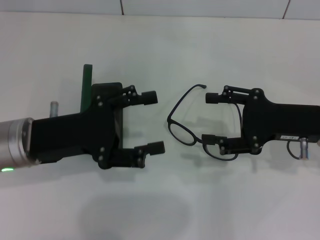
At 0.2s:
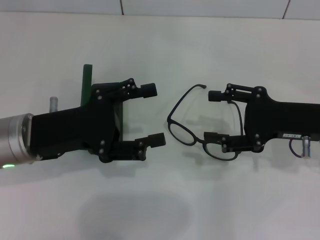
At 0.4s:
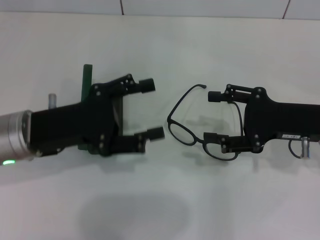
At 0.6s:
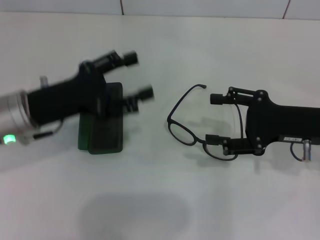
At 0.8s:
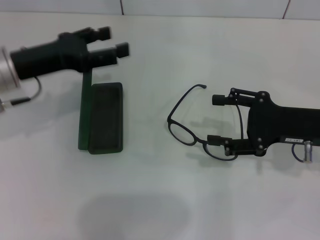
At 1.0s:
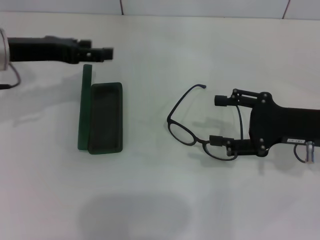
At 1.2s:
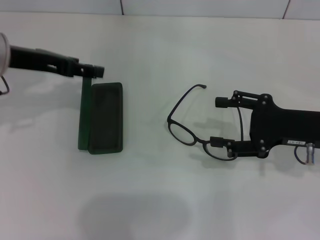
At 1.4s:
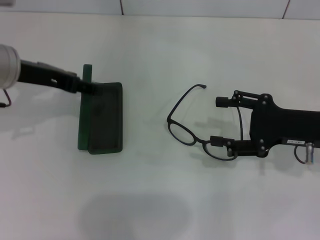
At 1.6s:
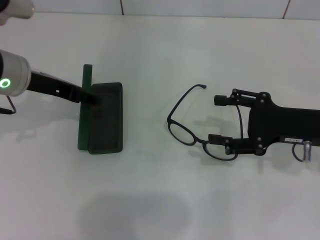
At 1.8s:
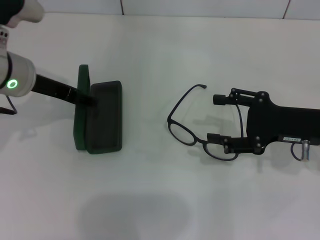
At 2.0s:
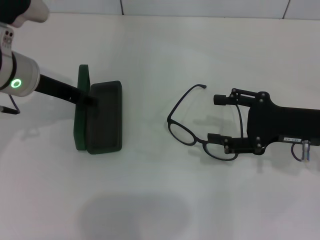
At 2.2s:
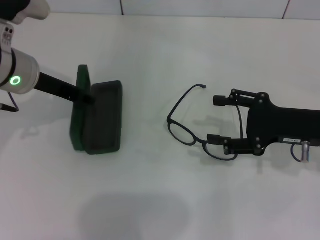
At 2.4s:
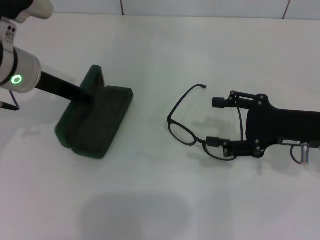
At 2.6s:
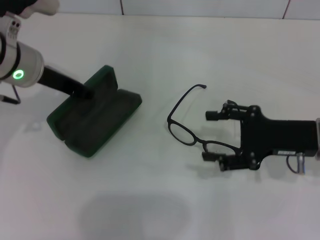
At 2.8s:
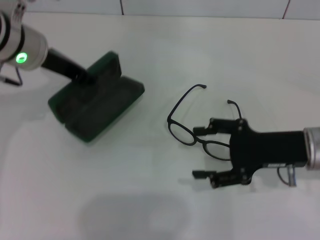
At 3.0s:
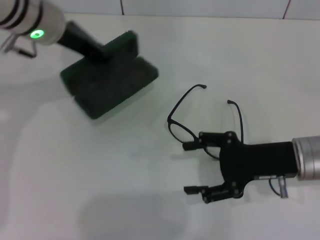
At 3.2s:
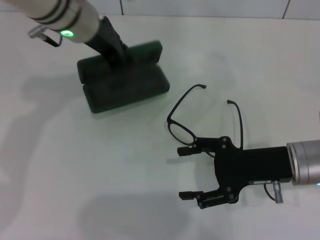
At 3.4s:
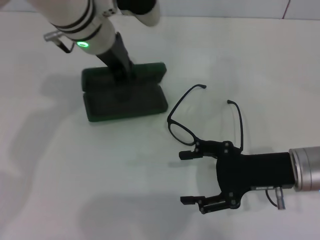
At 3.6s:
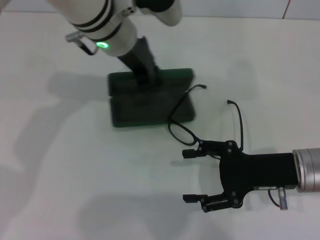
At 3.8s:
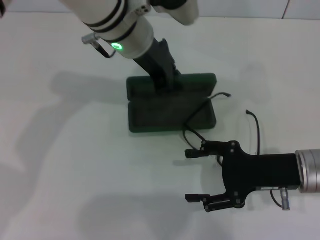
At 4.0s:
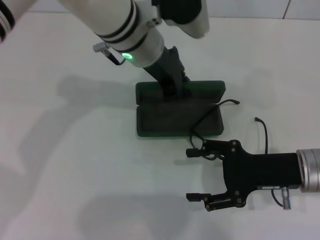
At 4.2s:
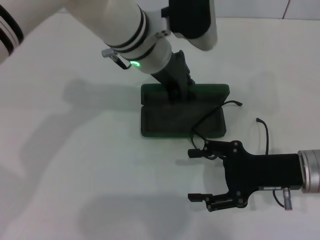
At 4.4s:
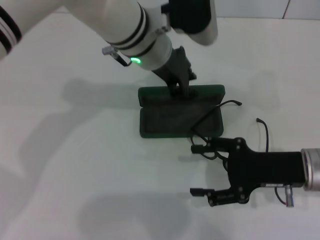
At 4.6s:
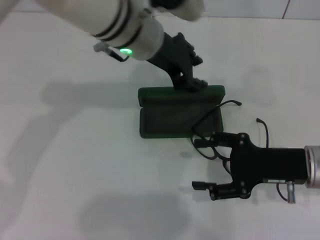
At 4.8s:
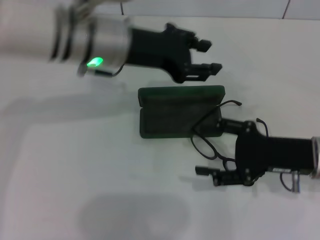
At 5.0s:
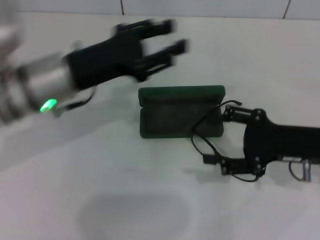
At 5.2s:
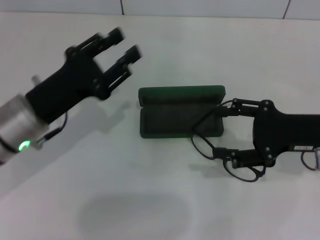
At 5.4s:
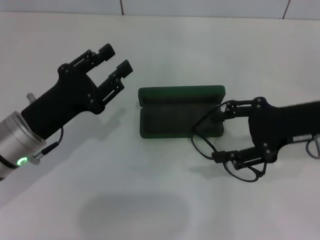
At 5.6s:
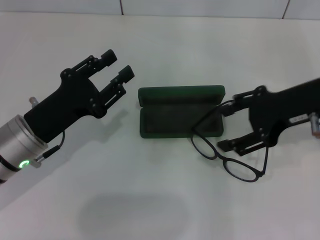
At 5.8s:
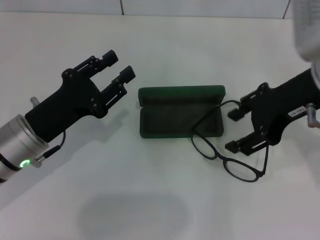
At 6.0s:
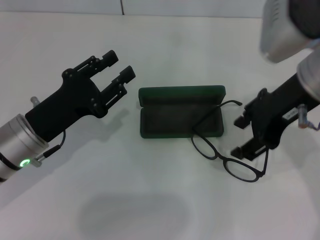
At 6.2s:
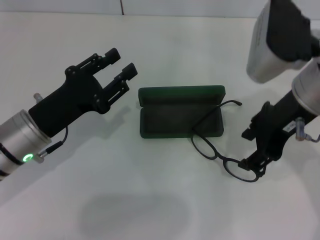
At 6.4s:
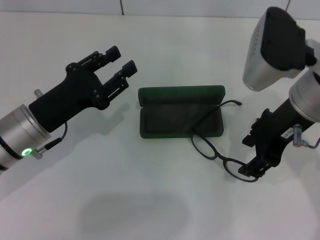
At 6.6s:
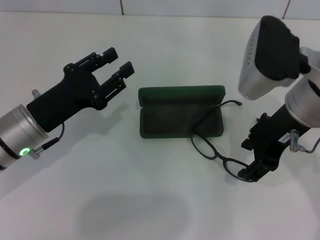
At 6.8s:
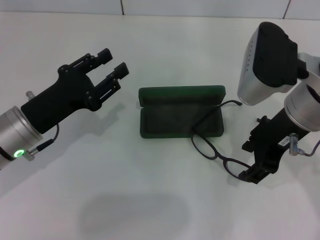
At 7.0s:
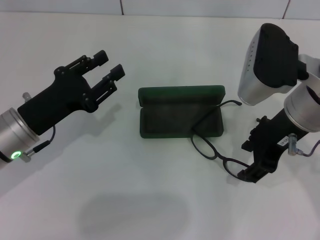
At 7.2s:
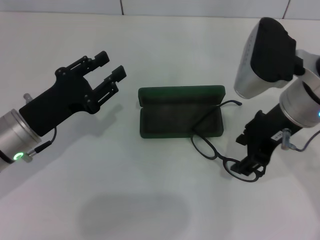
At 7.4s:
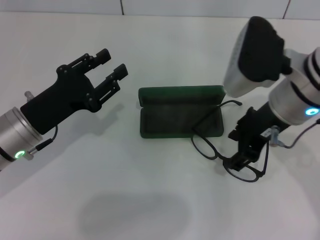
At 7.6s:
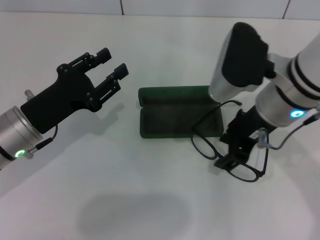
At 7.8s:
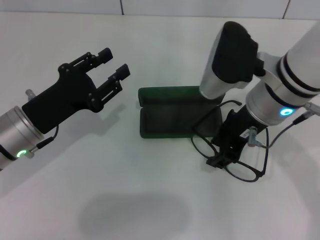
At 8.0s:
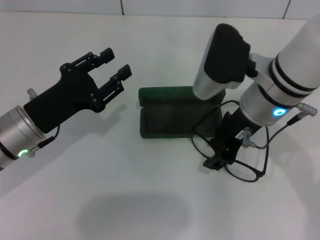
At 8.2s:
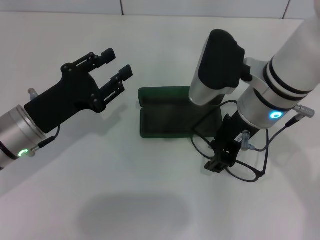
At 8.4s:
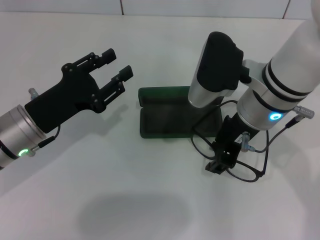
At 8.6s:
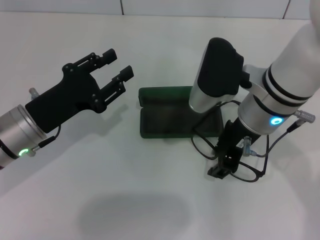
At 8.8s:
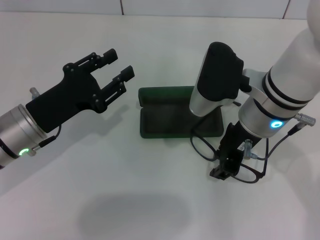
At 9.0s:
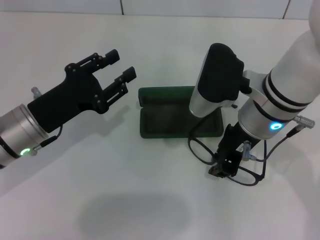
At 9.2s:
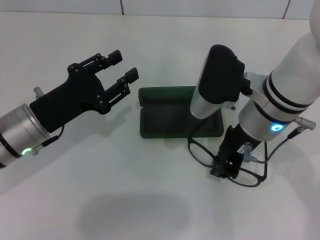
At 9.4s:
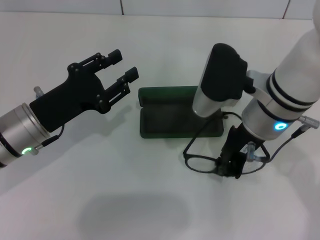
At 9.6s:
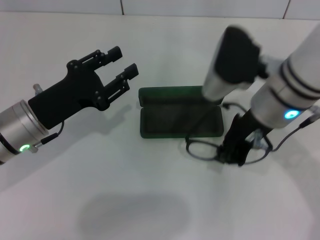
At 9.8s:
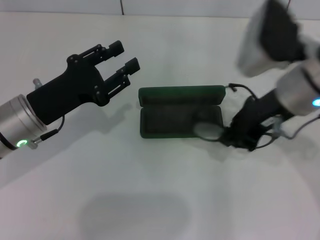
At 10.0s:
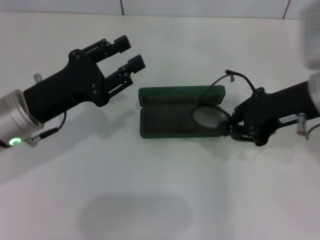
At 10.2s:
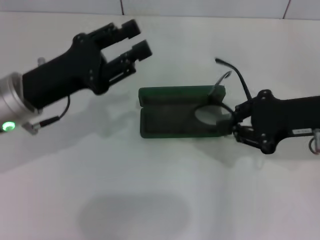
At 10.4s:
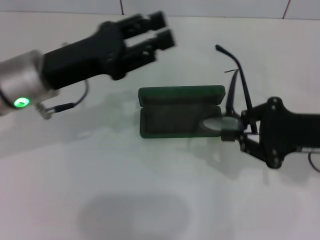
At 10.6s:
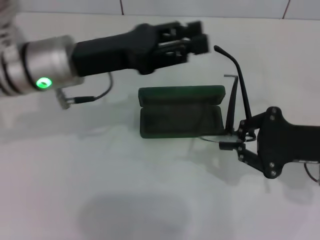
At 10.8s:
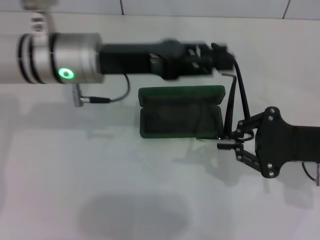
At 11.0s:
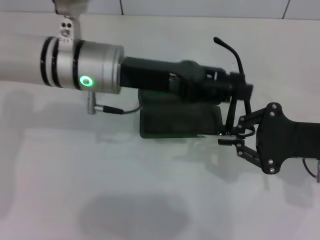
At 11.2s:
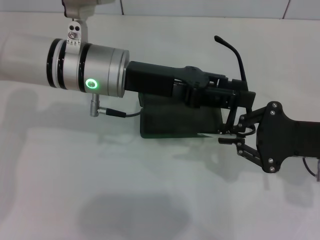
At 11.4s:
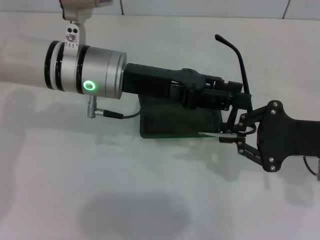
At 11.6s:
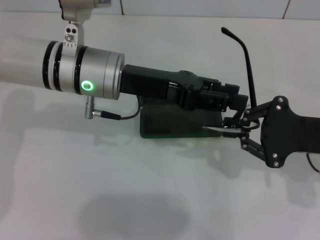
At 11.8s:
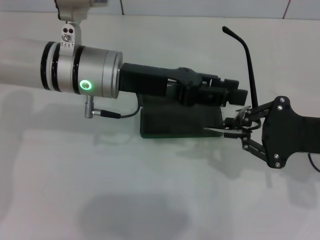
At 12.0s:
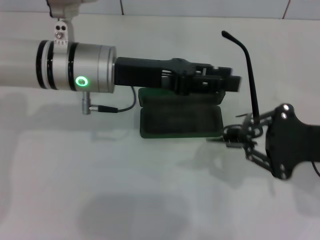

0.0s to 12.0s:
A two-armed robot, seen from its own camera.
Step, 0.0s to 2.2s: Grab the glasses case with your left hand.
Step, 2.4s to 4.6s: Place the glasses case in the center of the table with your left hand.
Step, 5.0s to 9.4s: Grab the eyeglass frame with your right hand.
0.0s to 1.6s: The left gripper goes about 10 cm forward and upward.
1.6s to 3.0s: The left gripper goes about 5 cm to the right, and closes.
3.0s to 4.4s: The left gripper travels to the right by roughly 15 cm.
4.4s to 6.0s: The left gripper heads to the left, backward and downward, covering some 25 cm, and opens up, while the right gripper shifts roughly 15 cm upward.
6.0s to 7.6s: The right gripper heads downward, covering about 5 cm.
7.6s to 9.0s: The grippers stay close to where they were, moving slightly.
9.0s to 10.4s: The right gripper is displaced to the right by roughly 15 cm, and closes up, while the left gripper goes roughly 5 cm upward.
10.4s to 12.0s: The left gripper is displaced to the right by roughly 5 cm.

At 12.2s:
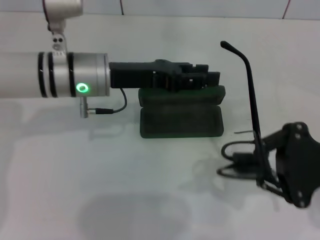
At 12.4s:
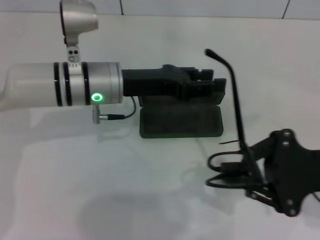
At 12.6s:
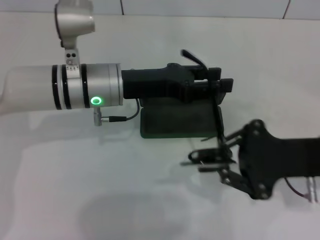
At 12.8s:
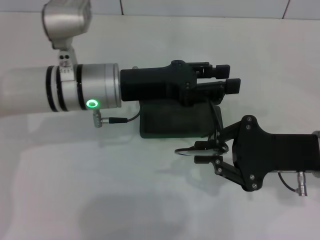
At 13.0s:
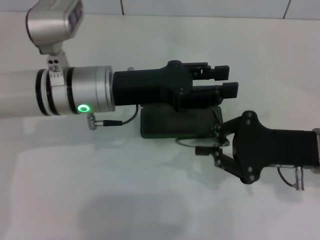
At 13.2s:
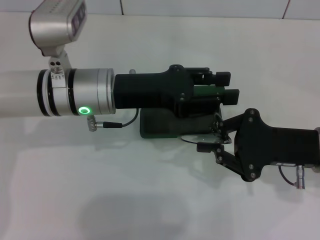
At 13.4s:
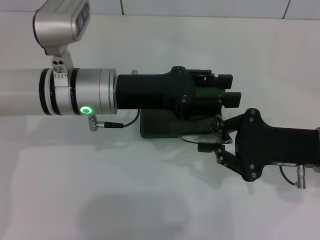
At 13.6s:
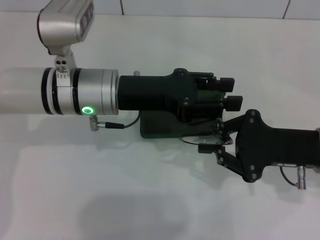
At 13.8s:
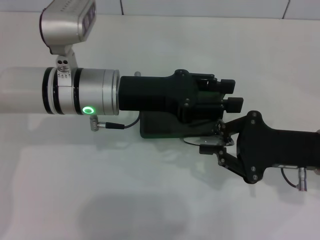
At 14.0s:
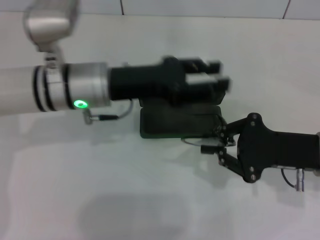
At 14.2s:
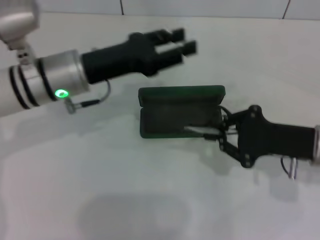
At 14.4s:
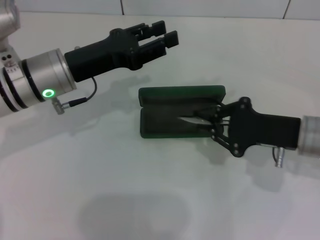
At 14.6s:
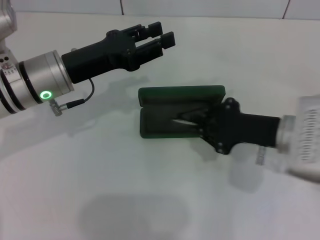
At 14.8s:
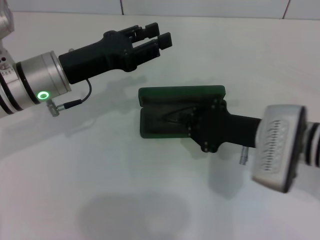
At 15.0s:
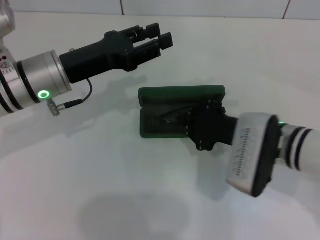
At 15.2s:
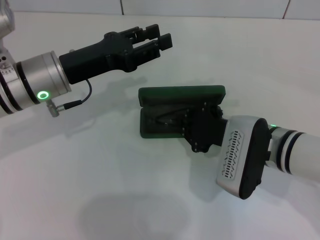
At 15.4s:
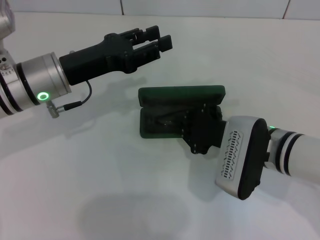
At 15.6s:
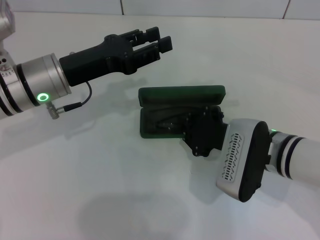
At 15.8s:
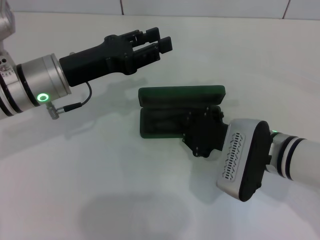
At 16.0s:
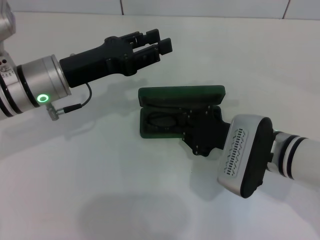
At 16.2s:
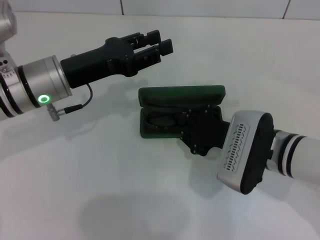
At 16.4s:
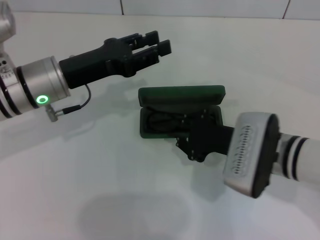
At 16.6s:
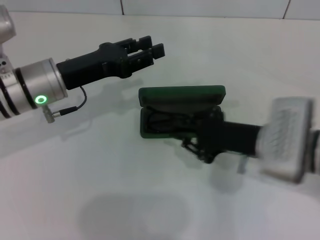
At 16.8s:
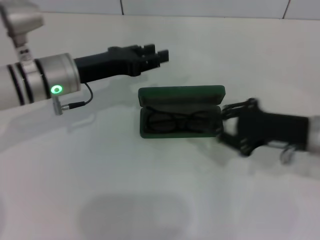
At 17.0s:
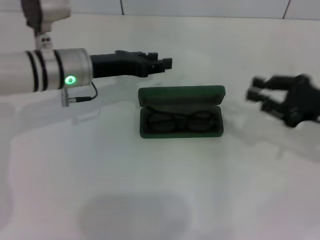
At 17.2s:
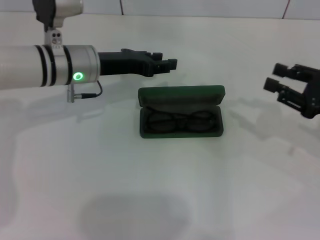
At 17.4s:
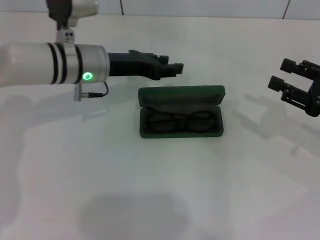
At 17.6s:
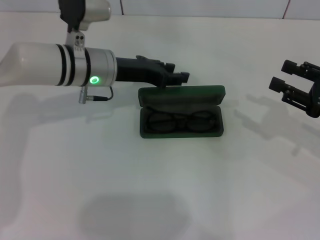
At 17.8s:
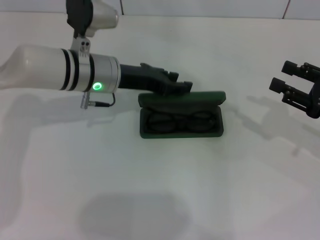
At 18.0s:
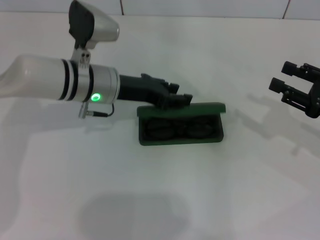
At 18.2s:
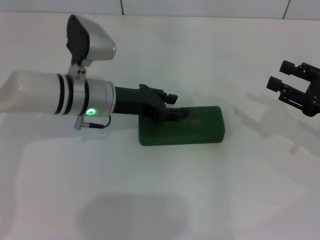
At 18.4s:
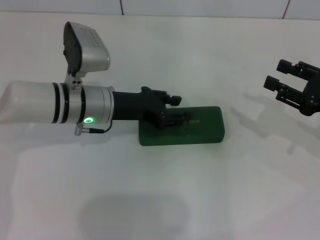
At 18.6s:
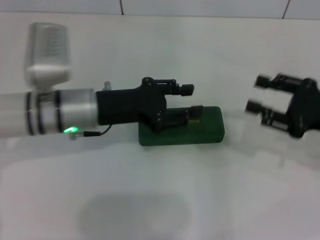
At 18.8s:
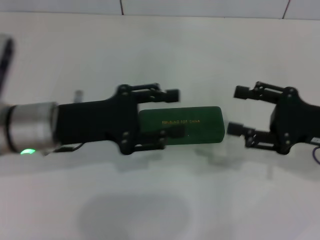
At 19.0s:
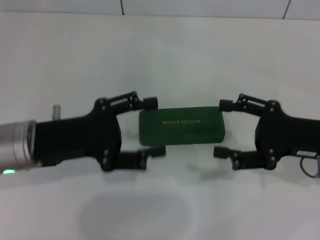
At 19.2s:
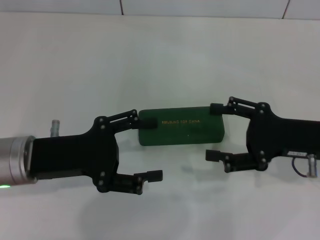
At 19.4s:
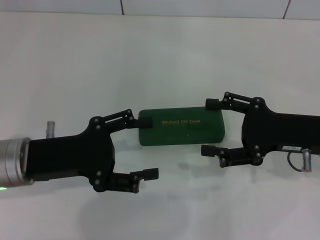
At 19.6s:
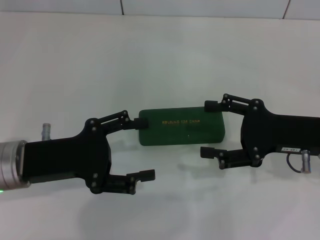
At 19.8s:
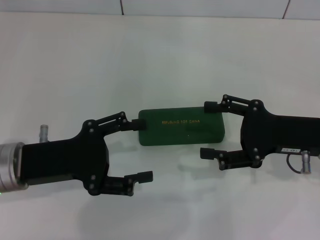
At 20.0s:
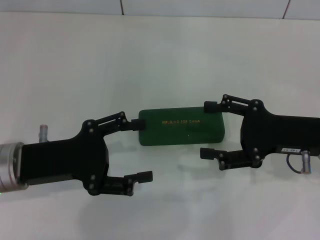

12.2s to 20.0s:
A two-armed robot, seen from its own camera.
Step, 13.8s to 16.2s: Put the glasses into the case with your right hand.
Step, 16.4s to 18.0s: Close the glasses case with your left hand.
12.2s to 13.8s: The right gripper changes place by about 5 cm.
13.8s to 15.4s: Both grippers move to the left, approximately 10 cm.
15.4s to 16.8s: The right gripper moves to the right, about 10 cm.
16.8s to 18.4s: The left gripper shifts by some 5 cm. Meanwhile the right gripper travels to the right by about 10 cm, and opens its fingers.
18.4s to 20.0s: The right gripper shifts some 10 cm to the left, and opens; the left gripper is displaced backward and to the left by roughly 15 cm, and opens its fingers.

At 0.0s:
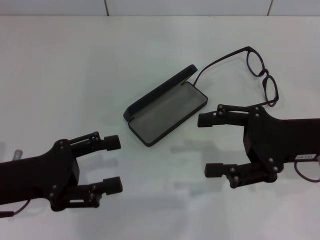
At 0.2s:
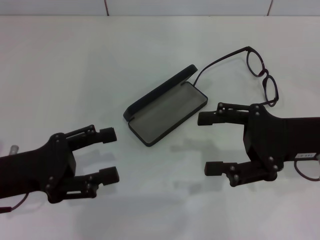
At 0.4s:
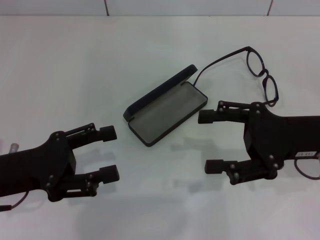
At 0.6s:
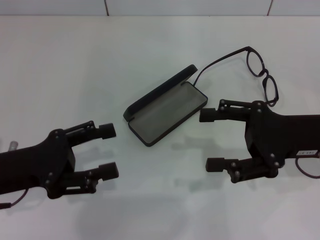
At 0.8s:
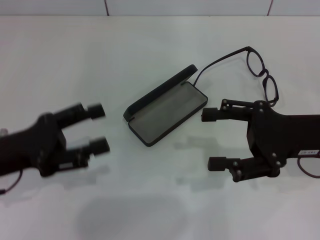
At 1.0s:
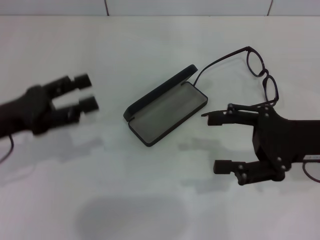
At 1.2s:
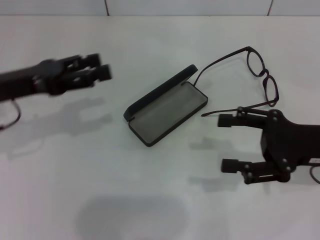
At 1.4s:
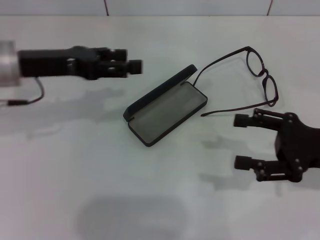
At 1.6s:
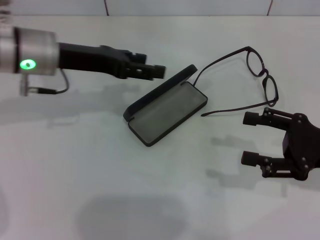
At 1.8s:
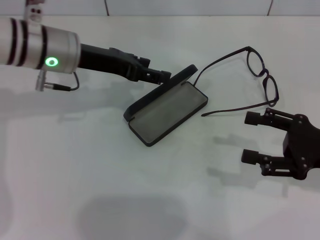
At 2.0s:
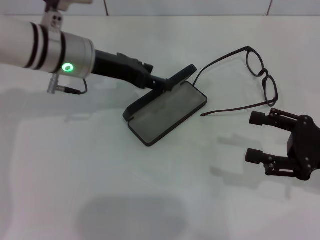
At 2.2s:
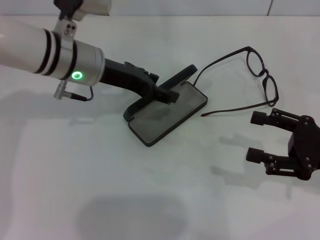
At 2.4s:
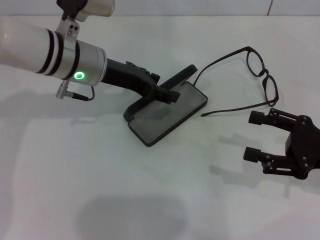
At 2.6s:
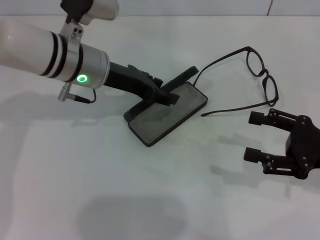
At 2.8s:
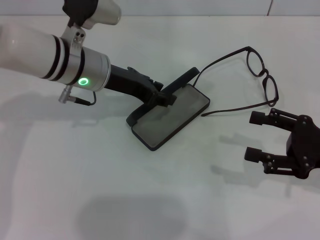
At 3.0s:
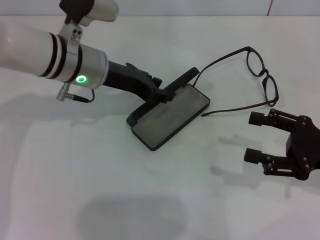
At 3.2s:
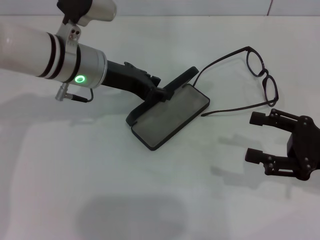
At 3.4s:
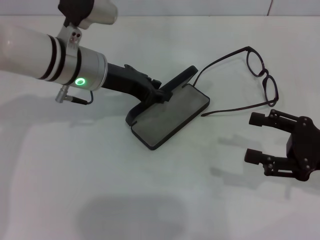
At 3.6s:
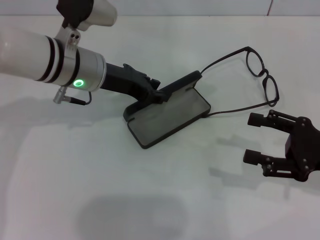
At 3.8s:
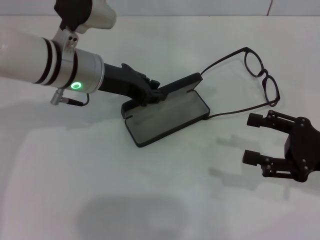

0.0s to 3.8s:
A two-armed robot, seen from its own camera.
0.0s to 1.2s: The left gripper goes approximately 10 cm forward and upward.
1.2s to 2.6s: The left gripper moves to the right and forward, approximately 15 cm.
2.6s to 3.8s: The left gripper closes up.
